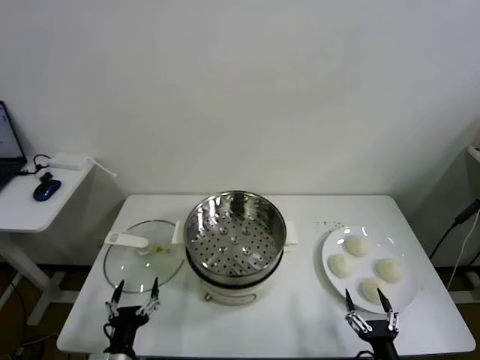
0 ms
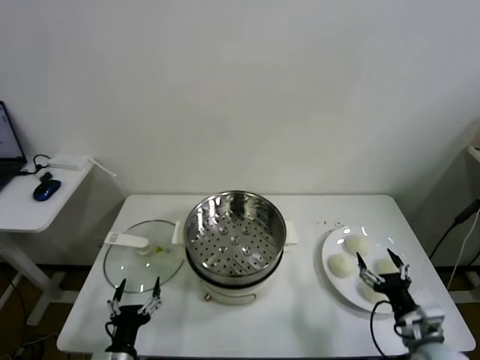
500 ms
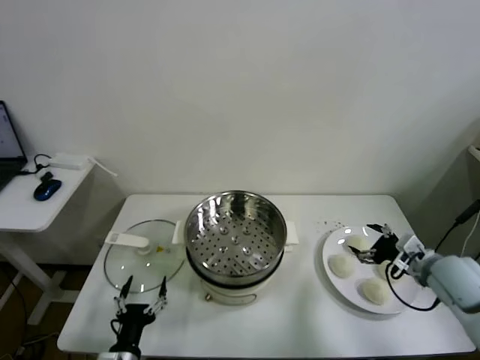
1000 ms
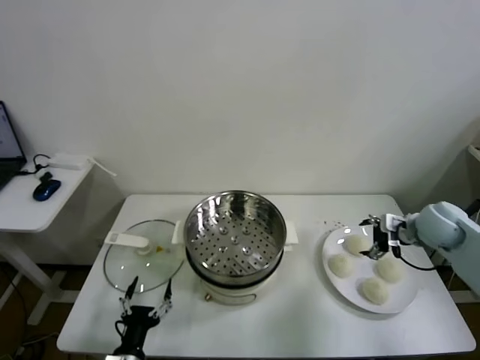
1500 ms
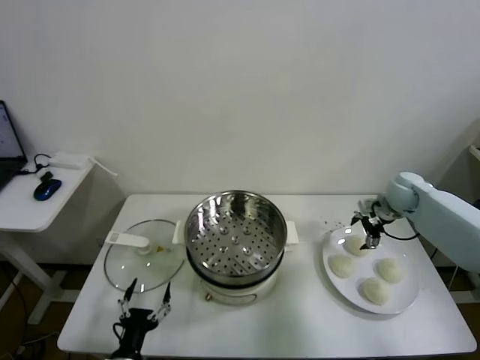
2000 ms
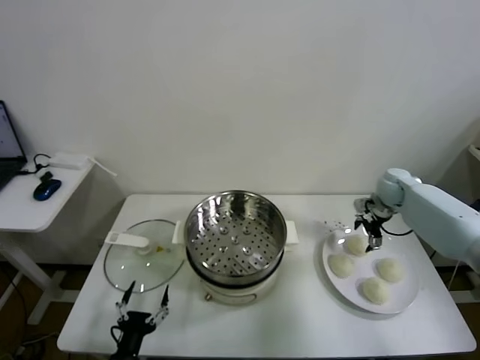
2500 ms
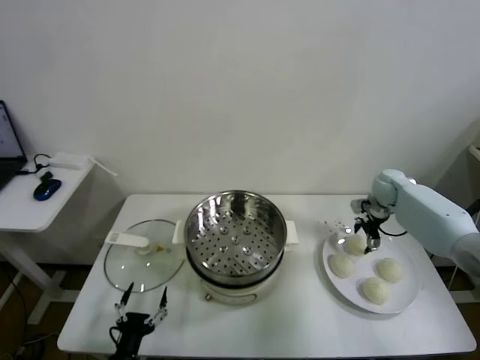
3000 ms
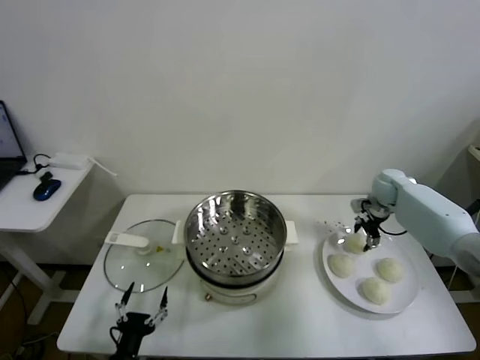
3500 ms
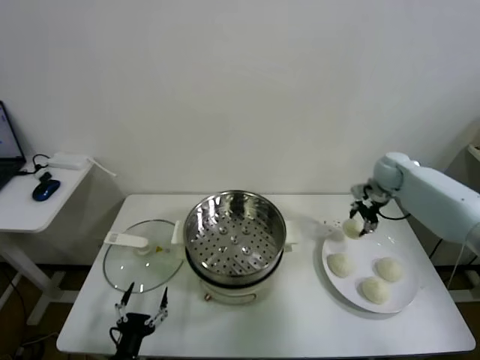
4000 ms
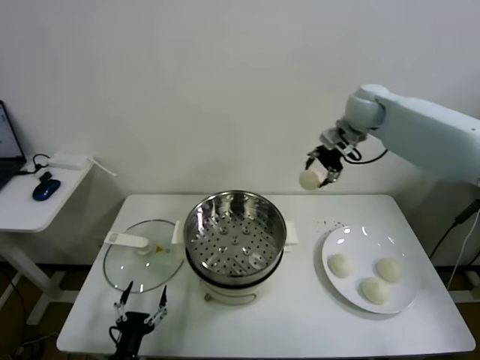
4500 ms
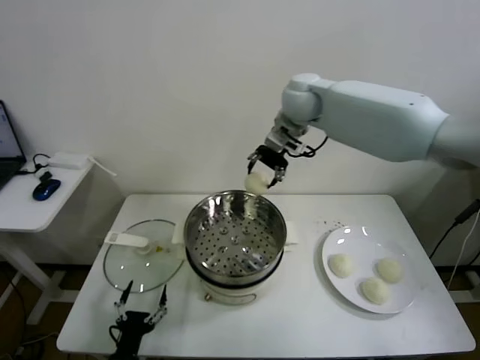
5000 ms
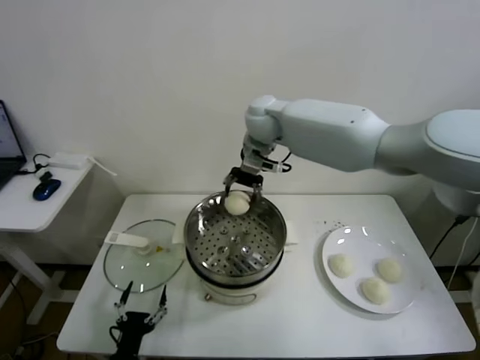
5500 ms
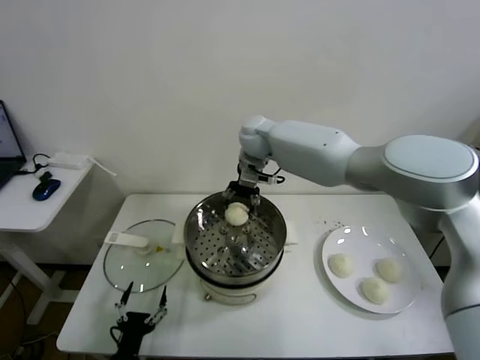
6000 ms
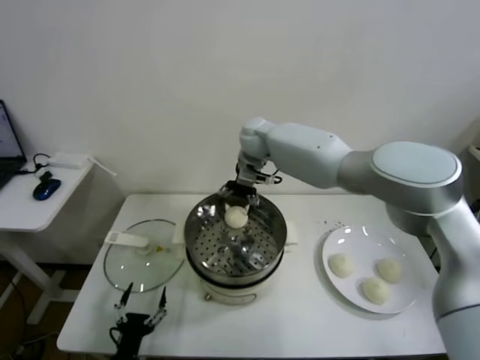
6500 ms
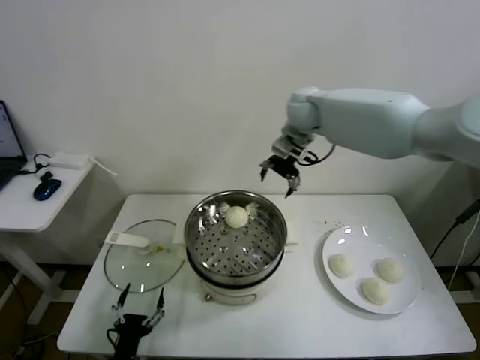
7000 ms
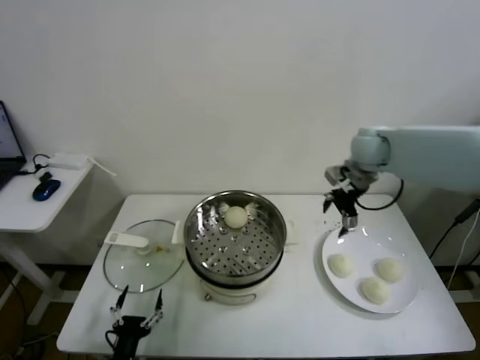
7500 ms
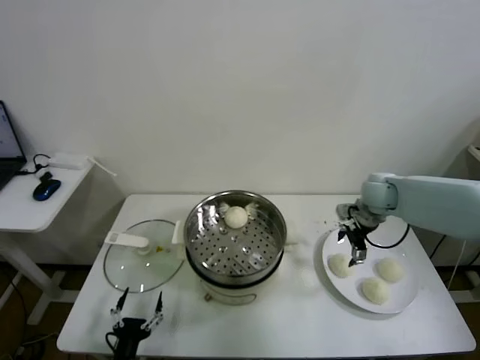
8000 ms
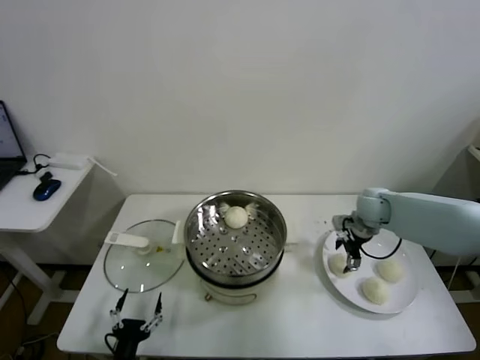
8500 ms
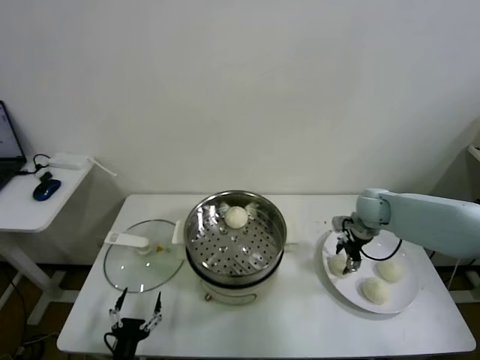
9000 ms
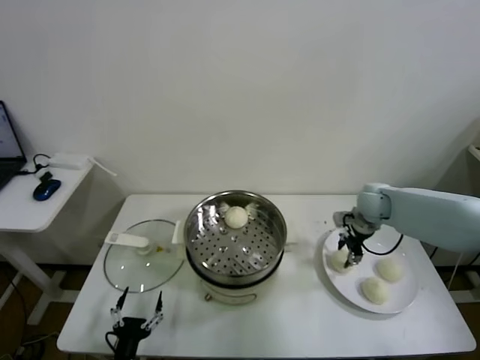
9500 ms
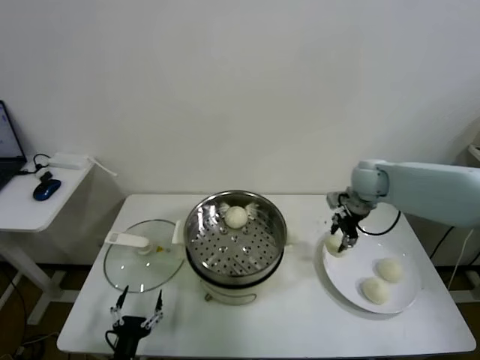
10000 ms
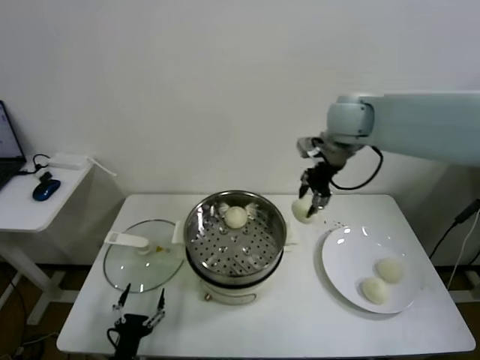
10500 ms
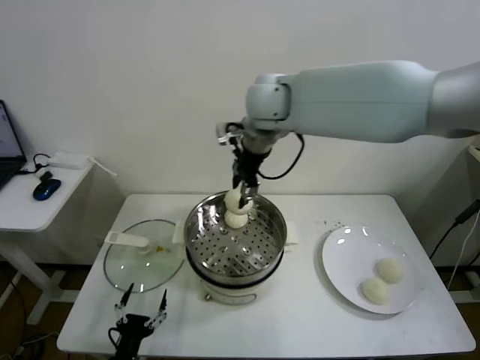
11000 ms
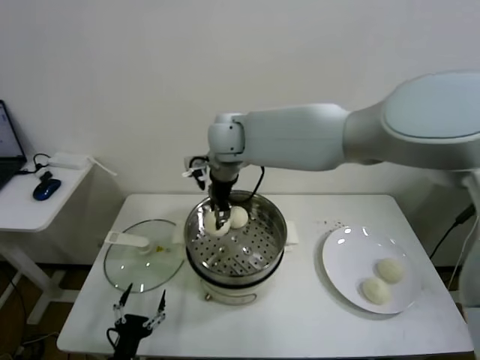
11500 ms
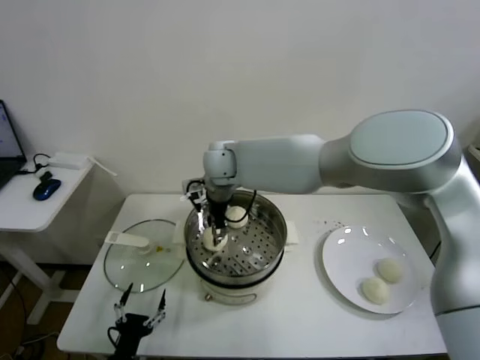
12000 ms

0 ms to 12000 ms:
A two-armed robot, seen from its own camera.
Task of the whole recording: take steamed baozi put them in steamer.
Step, 0 ms to 3000 ms: Grasp the baozi in the plate with right gripper.
Step, 3500 ms to 6500 ms: Place the baozi on the steamer with right gripper.
Step, 7000 ms to 9000 ms: Grasp the baozi in the plate with right gripper.
2000 ms to 4000 ms: The right gripper heads upward, covering approximately 5 cm, and closes.
4000 ms to 6000 ms: The right gripper travels to the left by roughly 35 cm.
6000 ms to 8000 ms: The right gripper travels to the right by approximately 30 cm, and opens its fingers.
8000 ms to 10000 ms: The right gripper travels upward by about 5 cm, and closes.
10000 ms to 12000 ms: The right gripper moves to the left, some 35 cm.

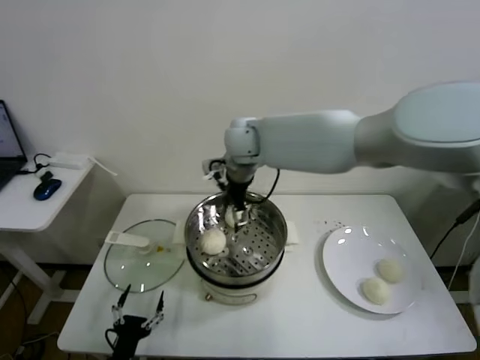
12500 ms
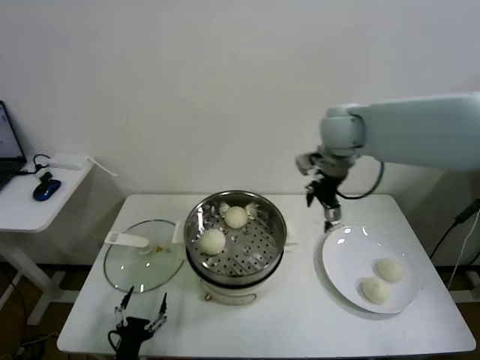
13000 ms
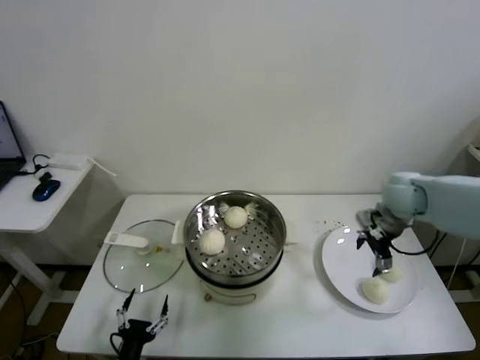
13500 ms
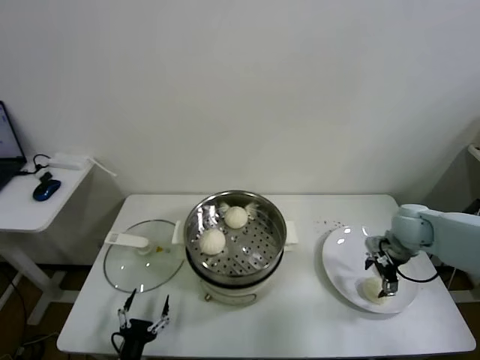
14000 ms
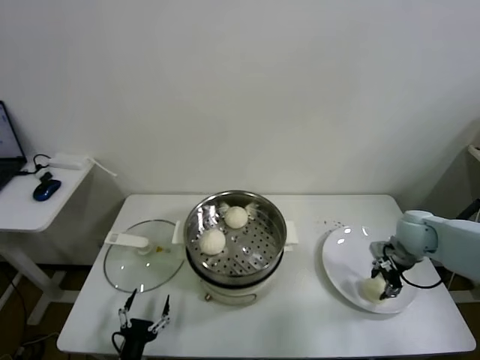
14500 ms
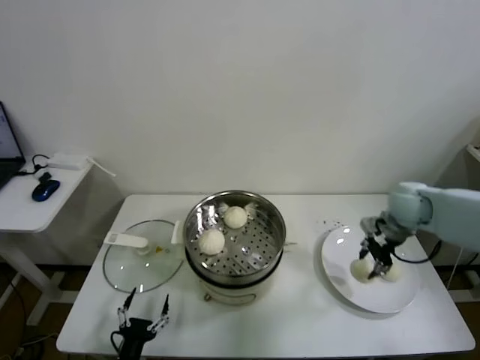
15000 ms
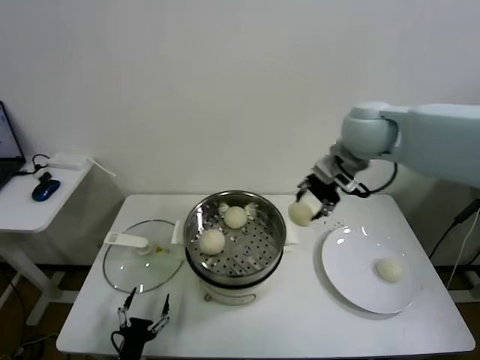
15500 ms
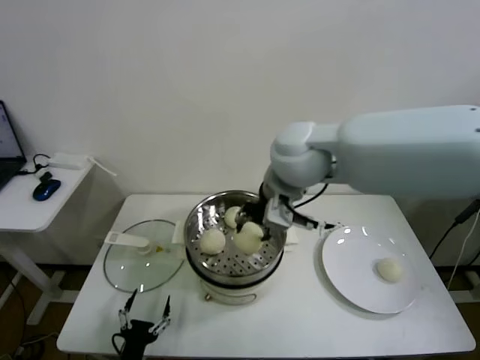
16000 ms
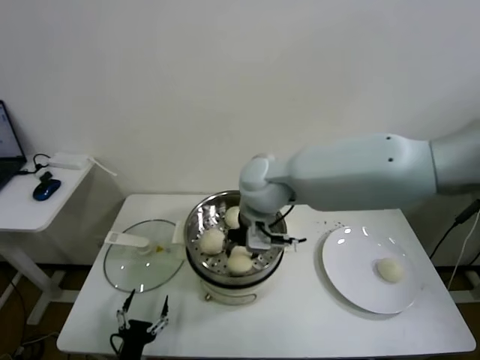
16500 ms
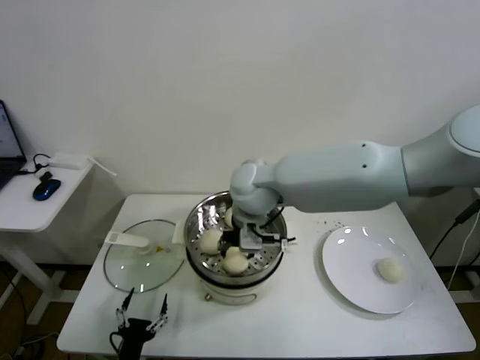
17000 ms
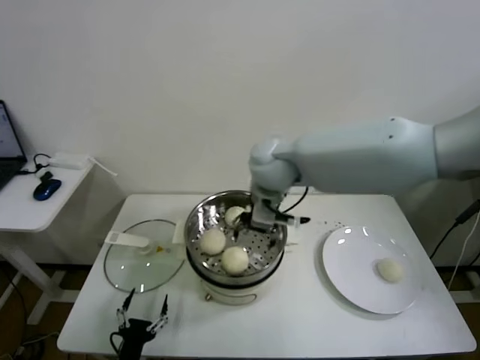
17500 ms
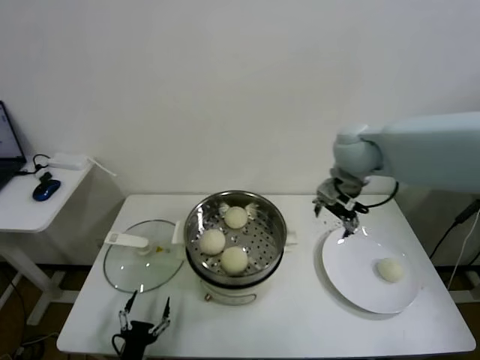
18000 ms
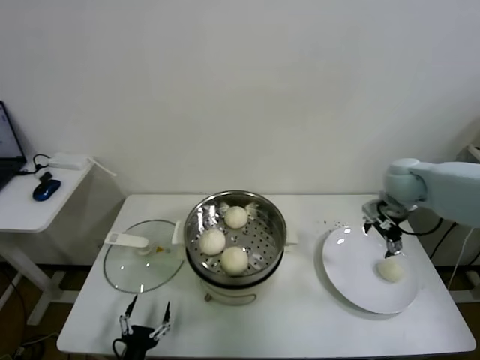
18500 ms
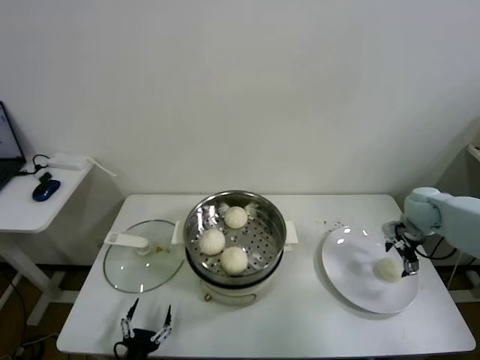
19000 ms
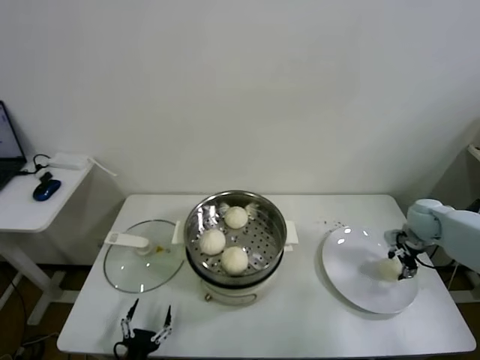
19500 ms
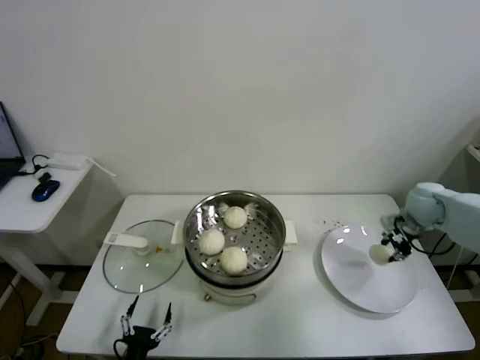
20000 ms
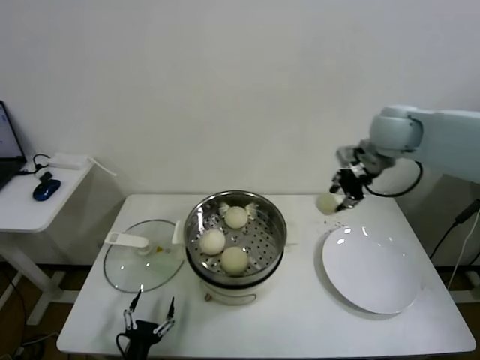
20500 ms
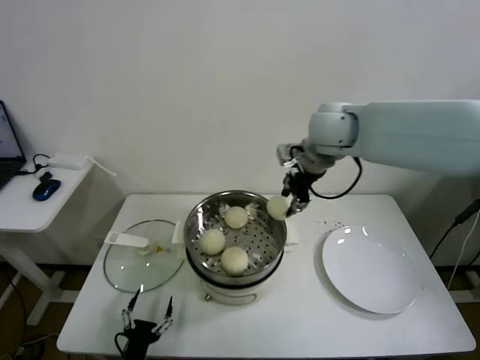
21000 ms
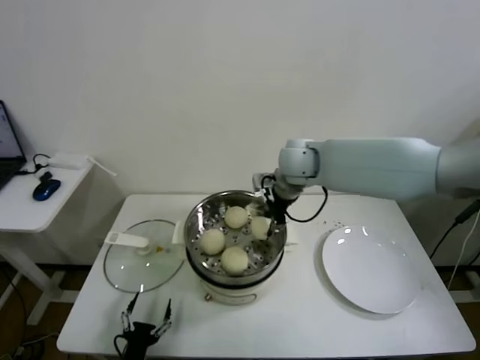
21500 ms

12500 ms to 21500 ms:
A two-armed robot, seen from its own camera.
Task of the whole recording: take steamed baozi put them in steamer.
Step, 12500 ms to 14500 ms: Grasp the baozi in the plate with right gripper.
Step, 15000 ms to 17000 ms: Place the baozi on the steamer with right gripper.
Step, 17500 ms to 19500 ms: Grasp the baozi in the plate with right gripper.
12500 ms to 14500 ms: The right gripper goes roughly 40 cm to the right and downward, and closes up.
14500 ms to 17000 ms: The right gripper moves to the left and upward, roughly 40 cm.
17000 ms to 19500 ms: The right gripper heads to the right, covering about 40 cm, and opens, then closes once more.
19500 ms to 21500 ms: The right gripper shifts approximately 40 cm to the left and upward, and closes its fingers.

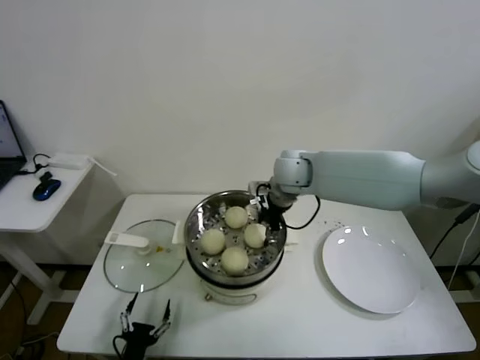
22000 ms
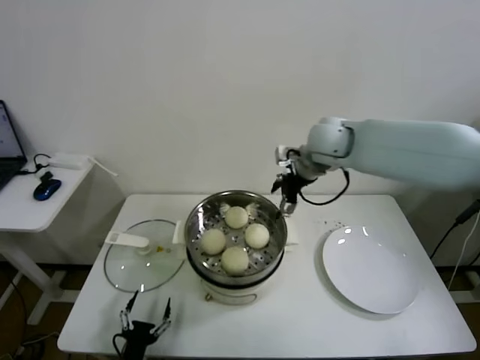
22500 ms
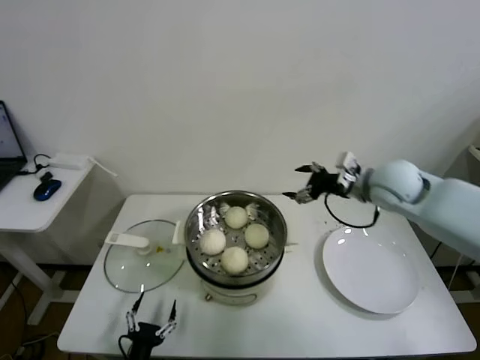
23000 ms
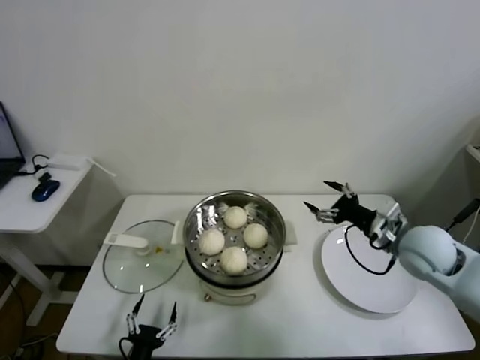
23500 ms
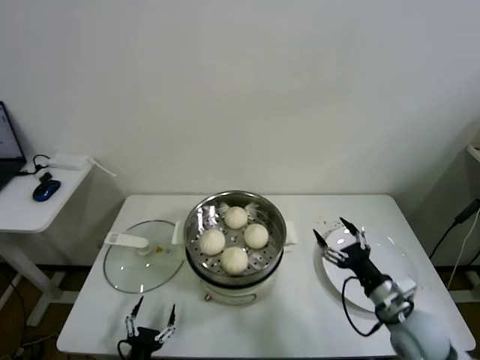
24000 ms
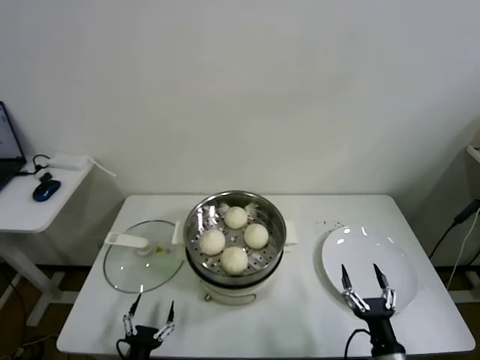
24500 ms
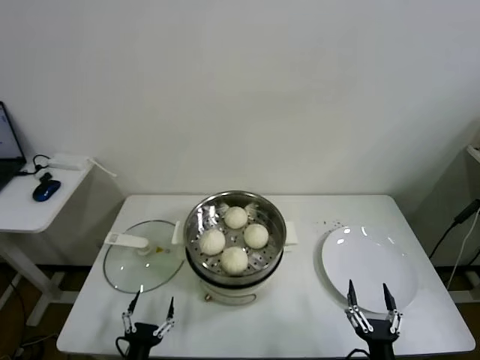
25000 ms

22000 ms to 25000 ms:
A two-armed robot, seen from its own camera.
Task of the whole recording: take steamed baozi put them in steamer.
22000 ms to 23500 ms: The right gripper goes approximately 30 cm to the right and backward, and opens.
23500 ms to 25000 ms: The right gripper moves backward and downward, approximately 35 cm.

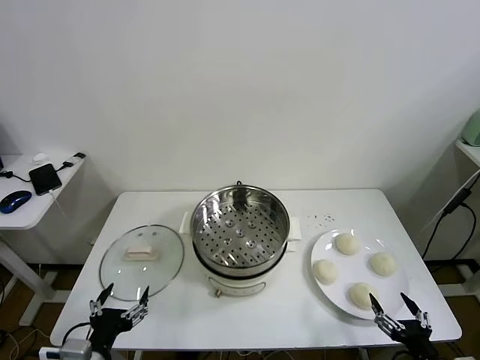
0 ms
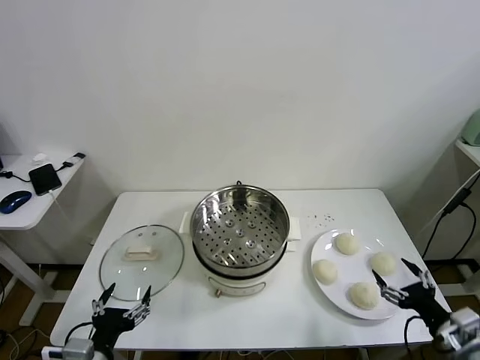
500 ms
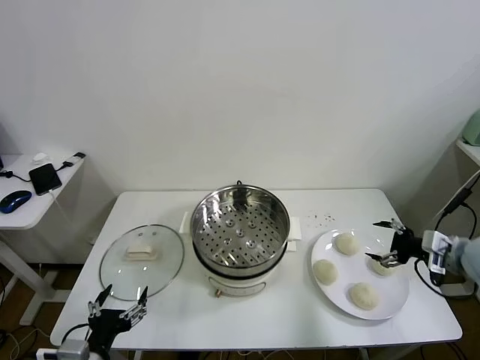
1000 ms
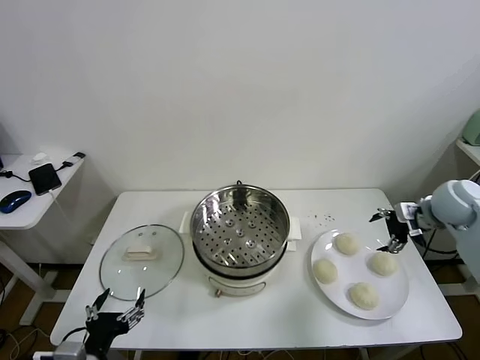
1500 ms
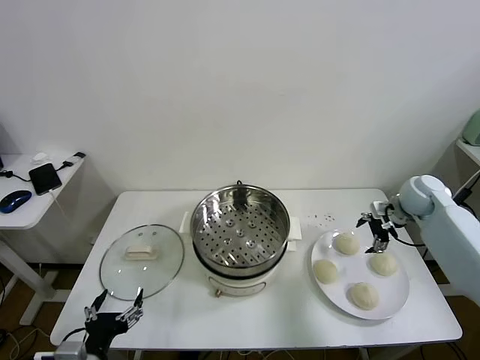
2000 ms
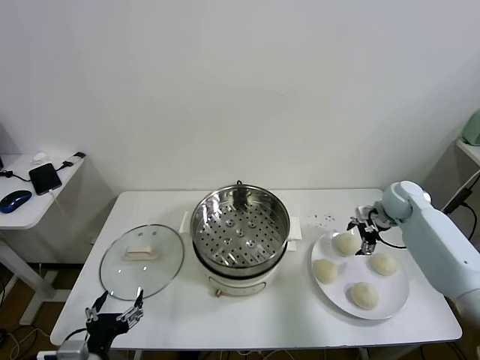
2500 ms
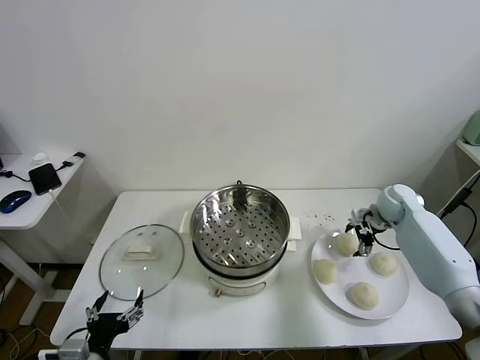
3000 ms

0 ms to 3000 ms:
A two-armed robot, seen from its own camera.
Task of the whole recording: take steamed baozi put them in steamer.
1500 ms to 3000 ms: The right gripper is displaced downward and forward by some 10 cm.
